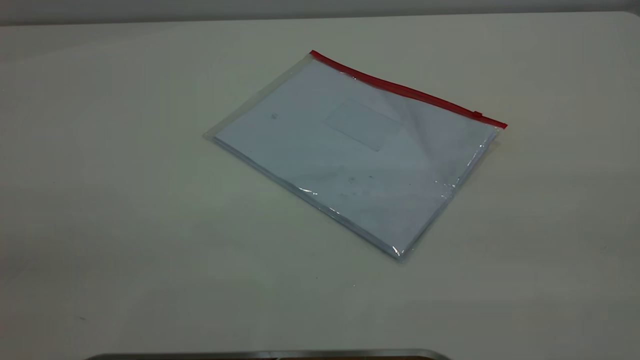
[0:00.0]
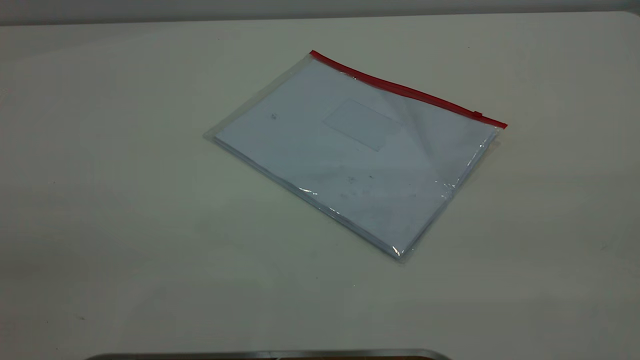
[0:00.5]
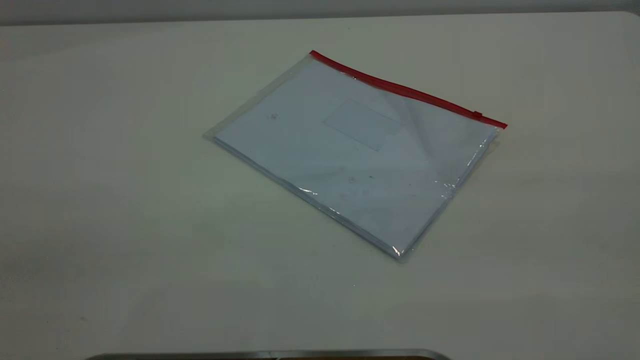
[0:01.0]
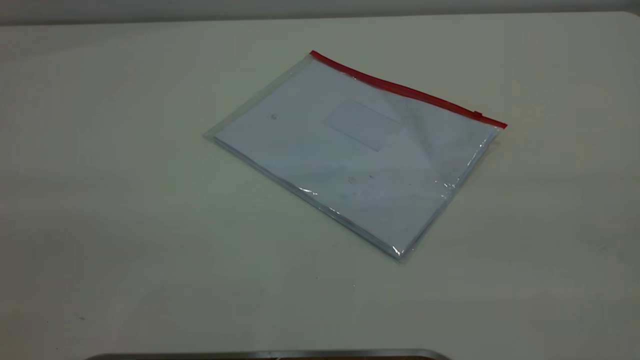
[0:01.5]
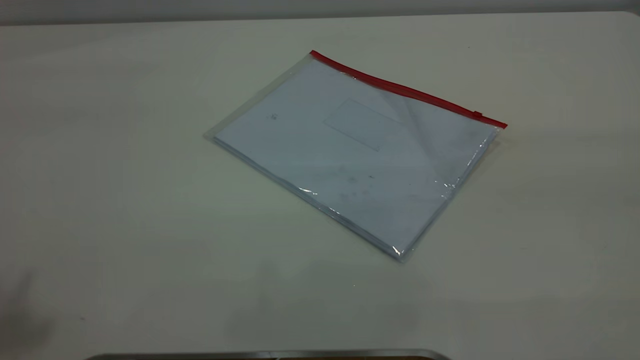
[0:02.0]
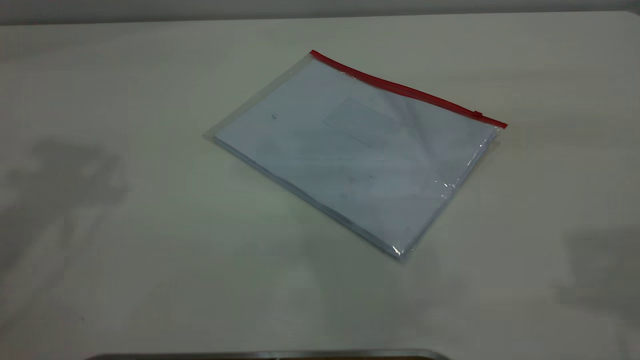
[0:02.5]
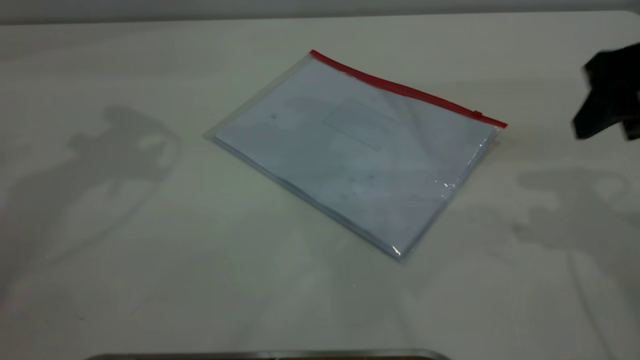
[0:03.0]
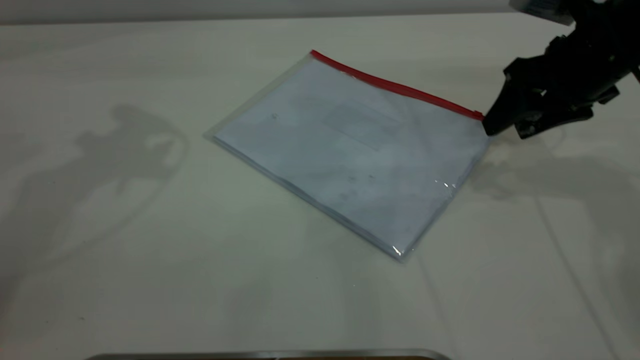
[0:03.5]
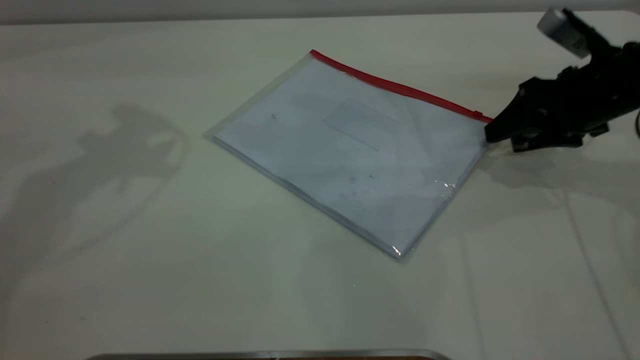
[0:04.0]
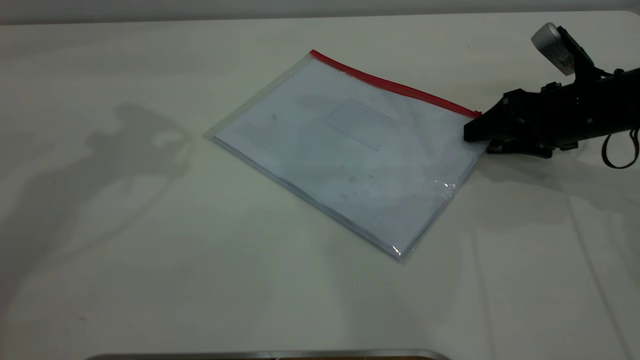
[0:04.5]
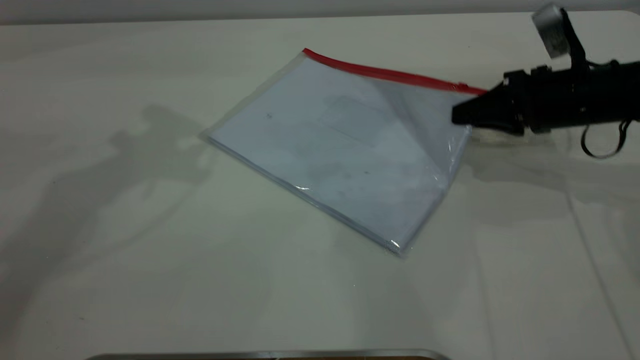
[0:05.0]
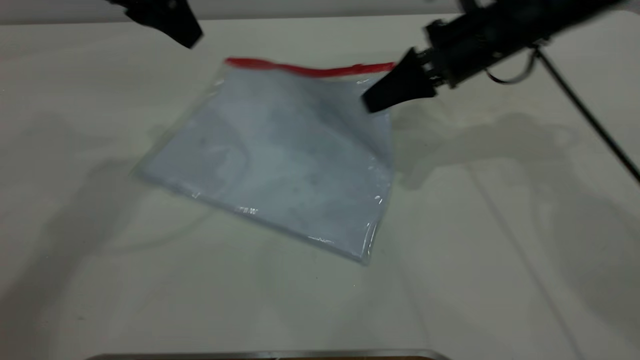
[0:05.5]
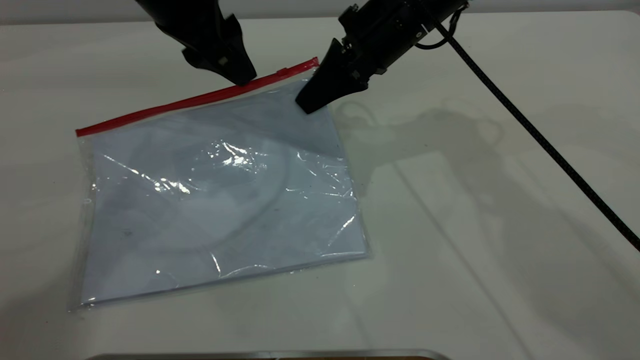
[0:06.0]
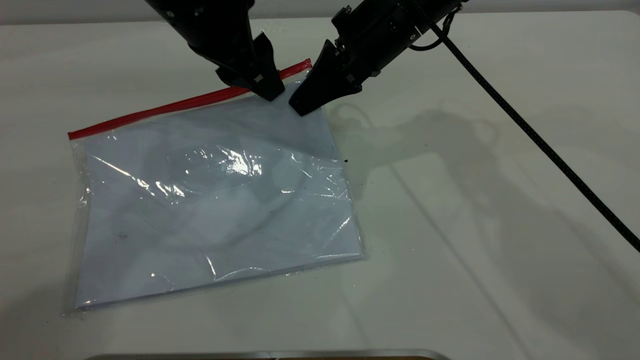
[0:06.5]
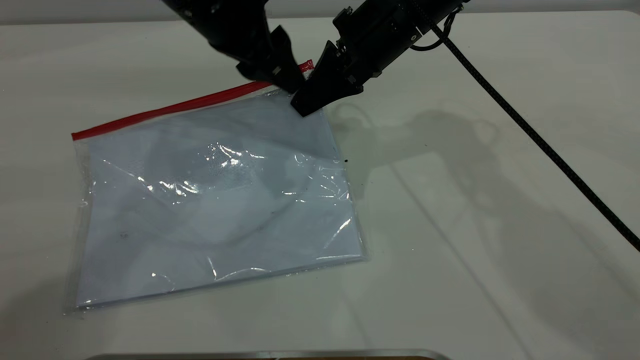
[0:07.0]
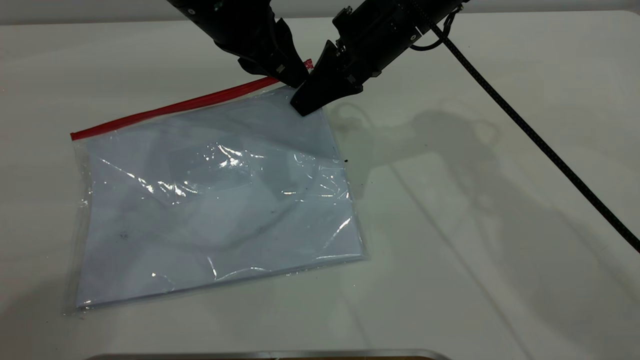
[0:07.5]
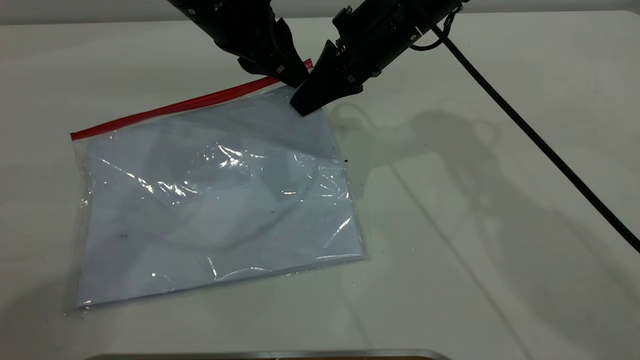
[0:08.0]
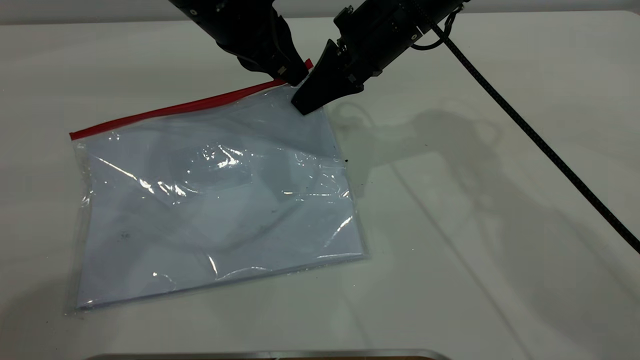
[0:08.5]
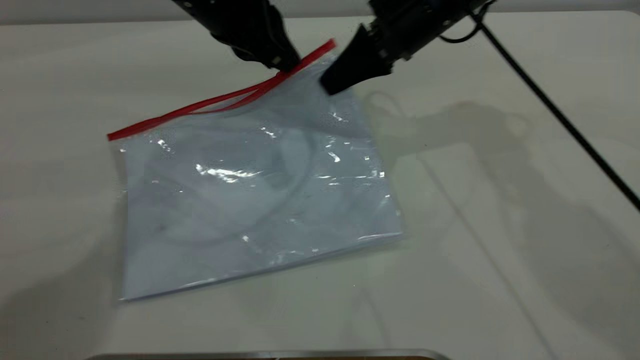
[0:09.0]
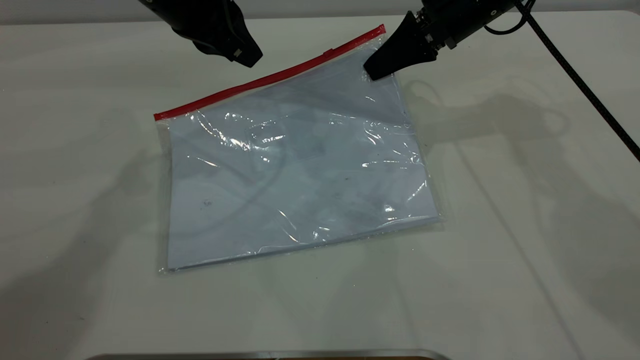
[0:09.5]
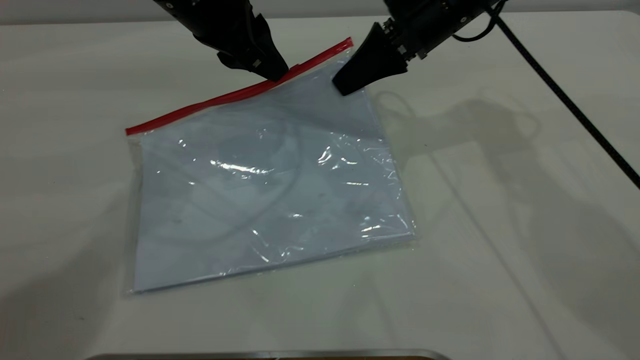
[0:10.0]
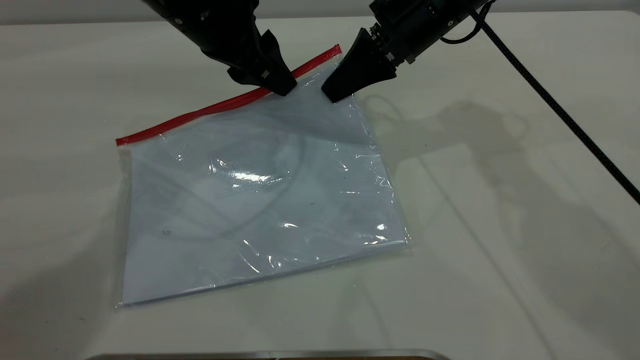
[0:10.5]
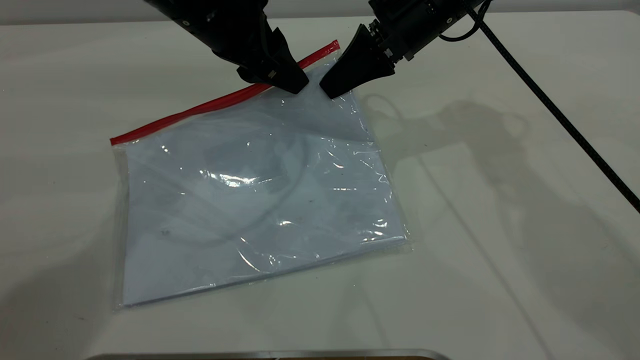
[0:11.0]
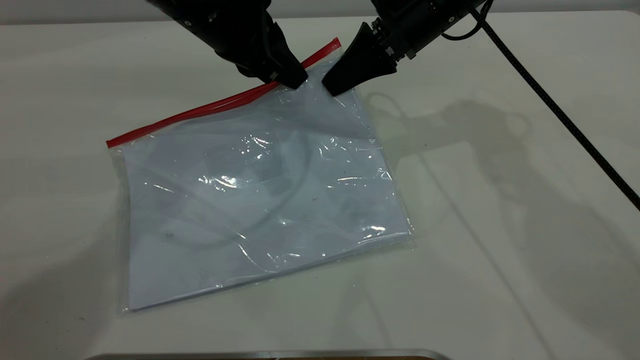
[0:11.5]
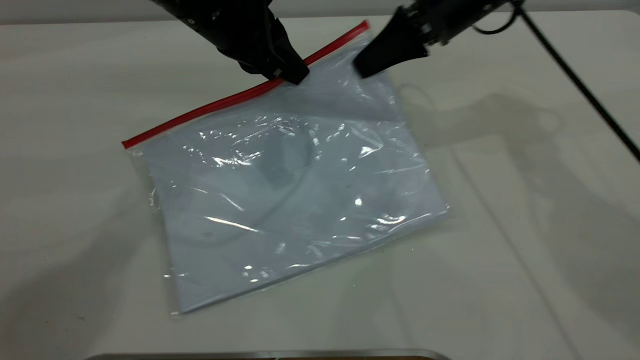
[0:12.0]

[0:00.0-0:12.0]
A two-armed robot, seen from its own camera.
Step, 0:00.0 to 0:05.5: Pick up the transparent plastic bag with the right gripper.
0:02.0 to 0:04.0: The right gripper is displaced forward and downward by roughly 50 cm.
0:04.0 to 0:06.0: The right gripper travels to the left by roughly 20 cm, and closes its fingers. The left gripper is displaced to the right and downward by approximately 15 cm.
0:06.0 to 0:08.0: The left gripper closes up.
0:08.0 to 0:10.0: The left gripper closes, then opens again.
0:10.0 to 0:12.0: The left gripper closes its fingers.

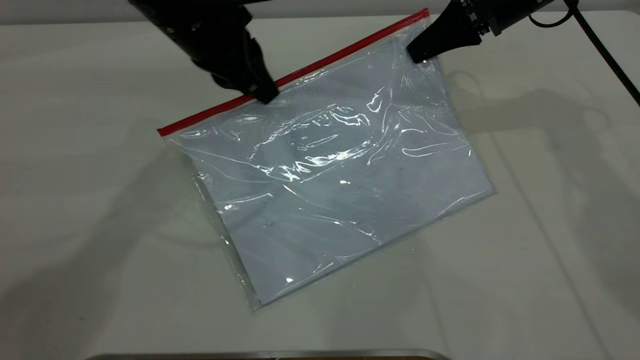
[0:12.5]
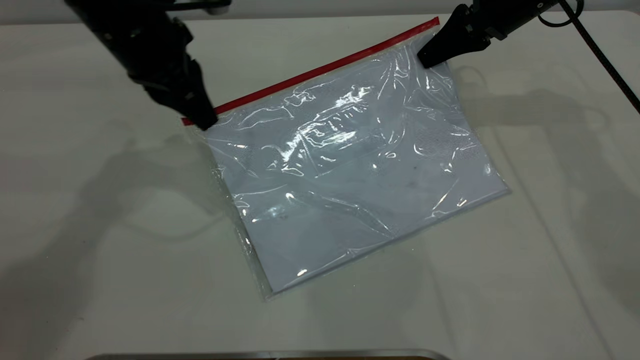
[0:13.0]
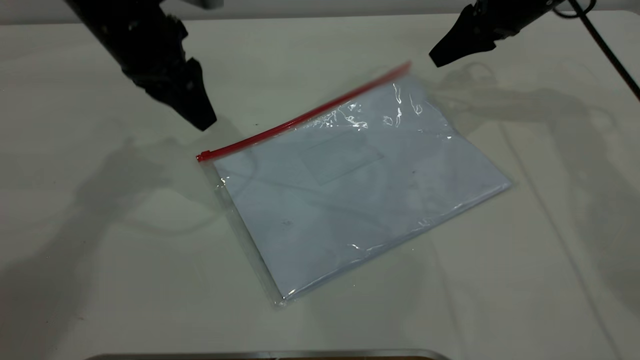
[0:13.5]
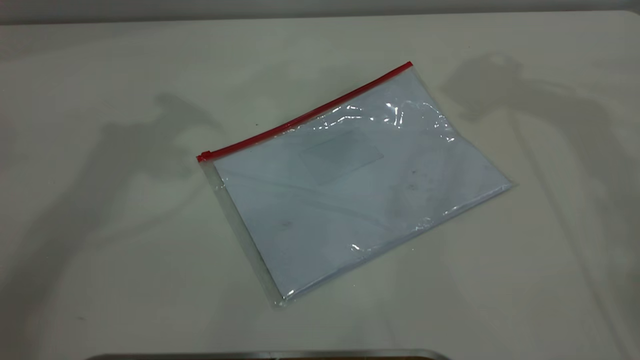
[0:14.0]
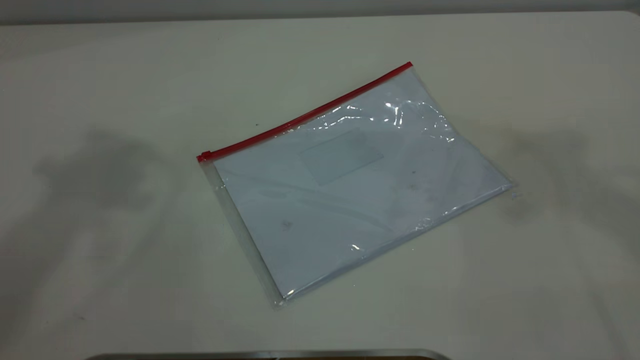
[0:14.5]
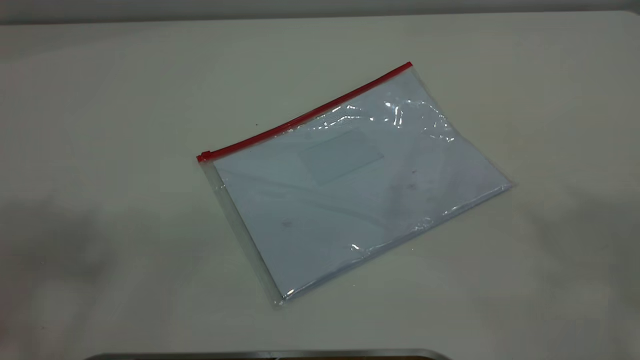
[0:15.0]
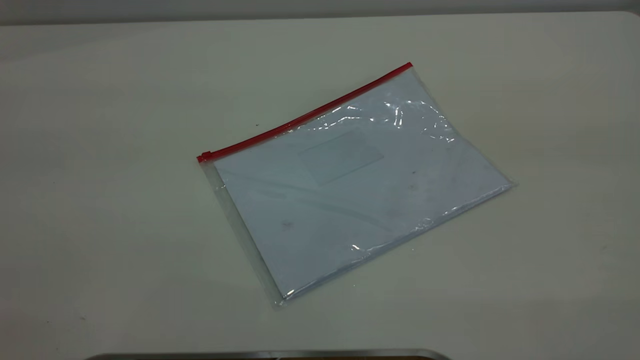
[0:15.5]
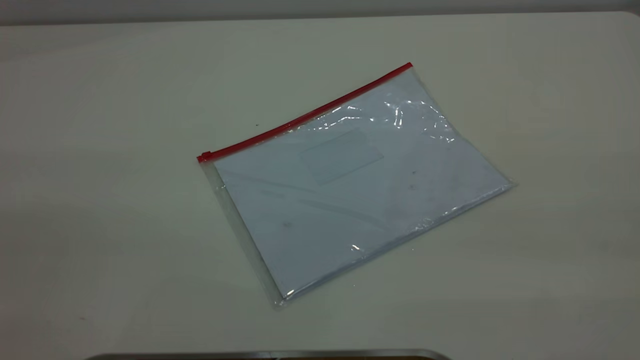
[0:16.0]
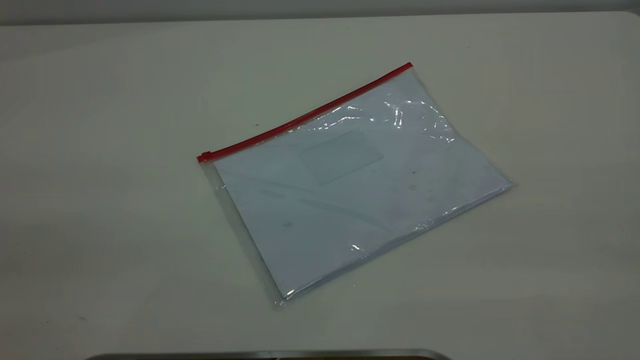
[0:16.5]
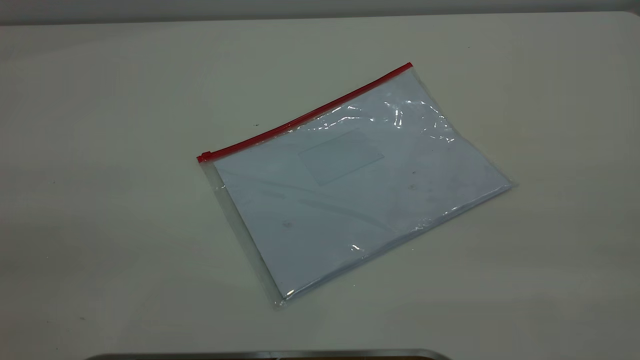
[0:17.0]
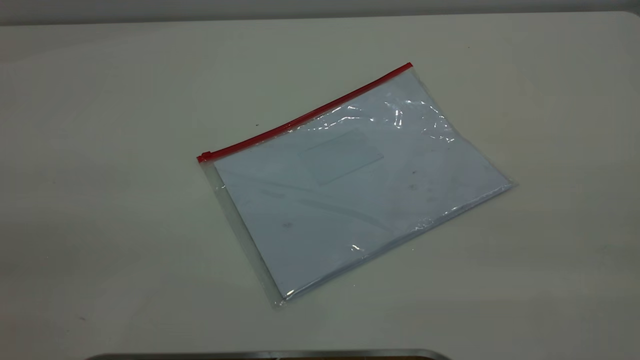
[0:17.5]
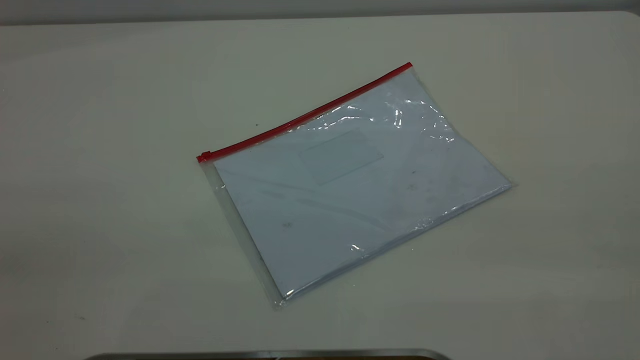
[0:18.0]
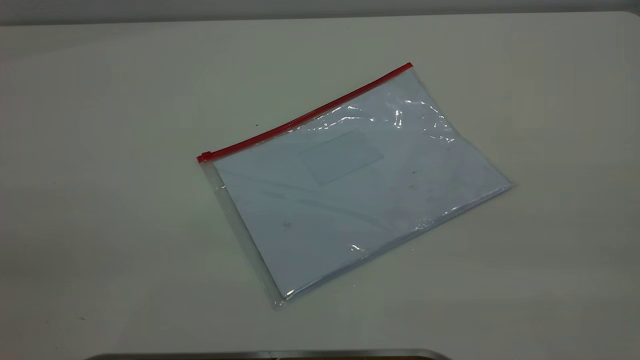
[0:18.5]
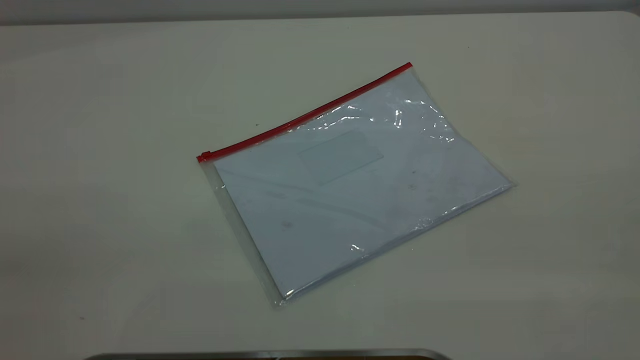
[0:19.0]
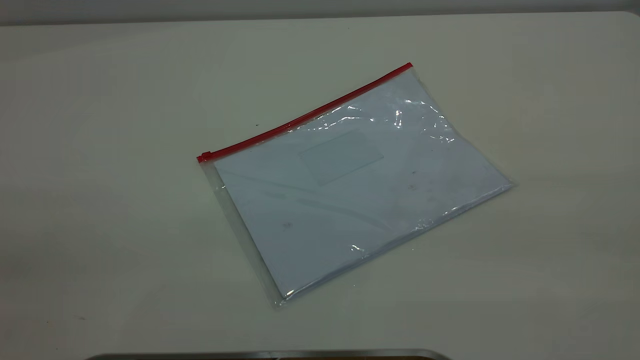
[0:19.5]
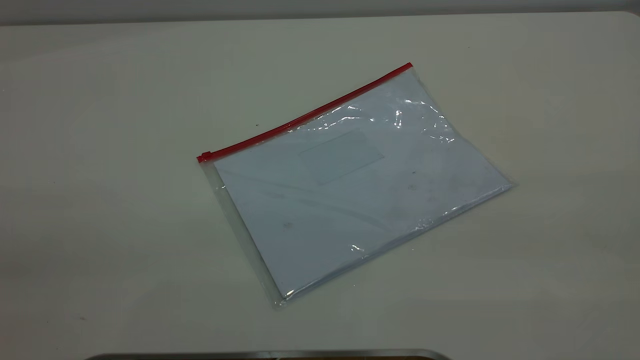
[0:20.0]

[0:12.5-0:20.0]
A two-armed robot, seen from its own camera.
Step, 0:13.5 to 0:14.0: Place the transparent plastic bag.
0:12.5 to 0:14.5: The left gripper travels upward by about 35 cm, and opens, while the right gripper heads upward and backward, covering approximately 50 cm, and opens its fingers.

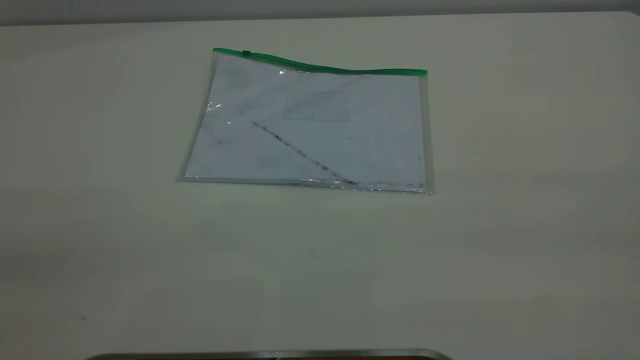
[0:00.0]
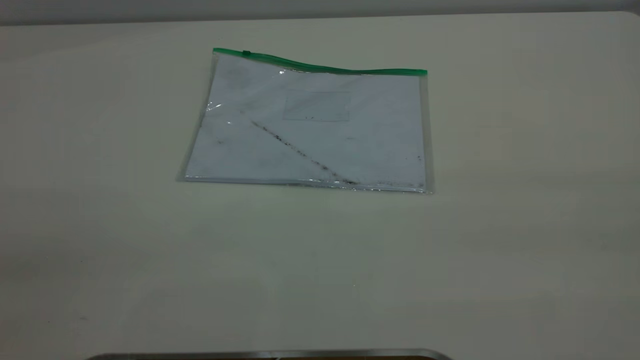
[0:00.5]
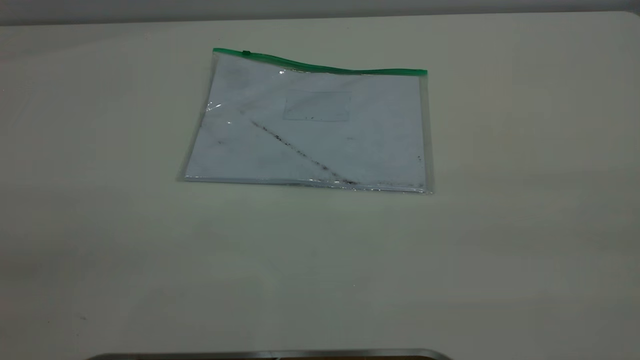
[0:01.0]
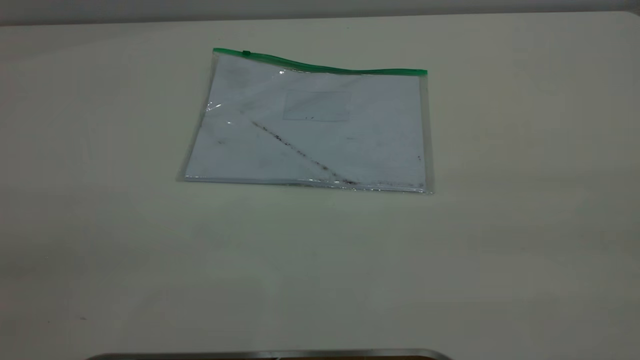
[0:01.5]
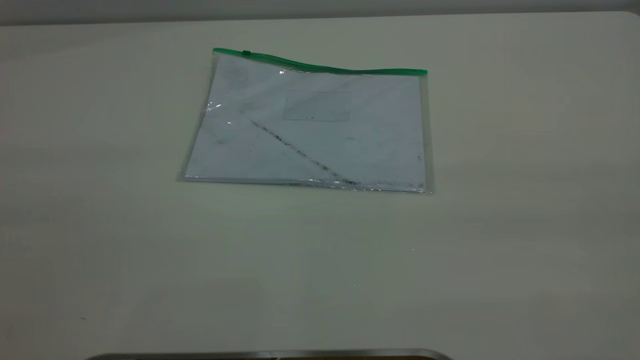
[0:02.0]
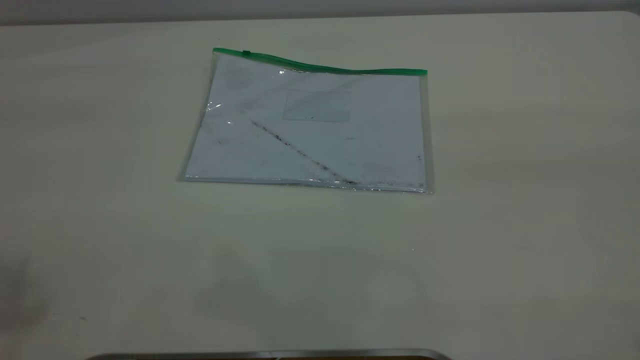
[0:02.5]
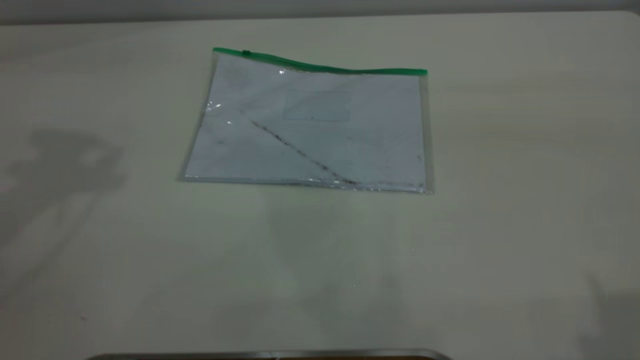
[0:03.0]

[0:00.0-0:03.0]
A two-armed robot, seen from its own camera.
0:00.0 to 0:01.5: The two grippers keep their place.
